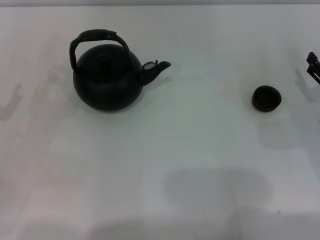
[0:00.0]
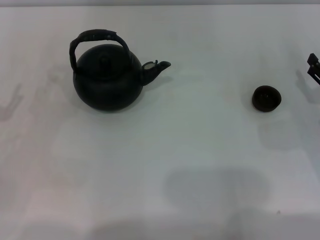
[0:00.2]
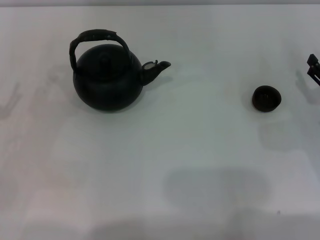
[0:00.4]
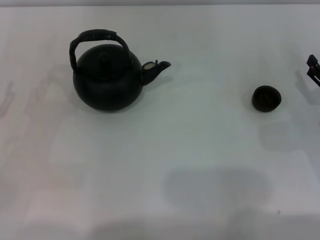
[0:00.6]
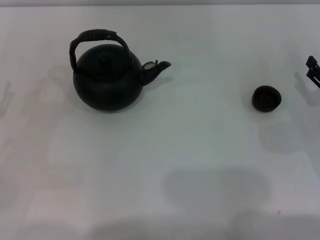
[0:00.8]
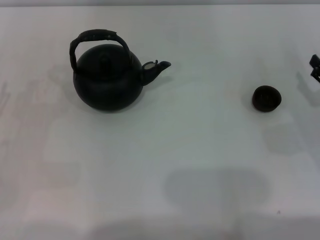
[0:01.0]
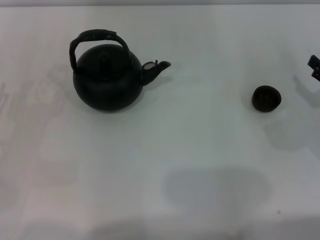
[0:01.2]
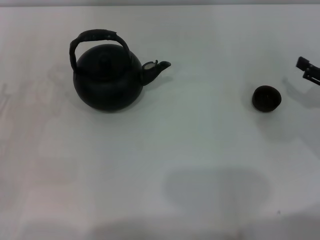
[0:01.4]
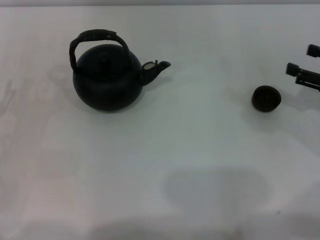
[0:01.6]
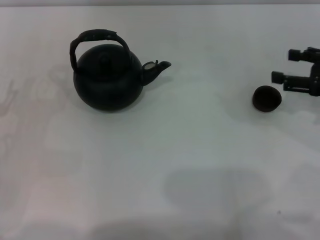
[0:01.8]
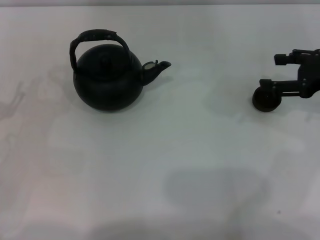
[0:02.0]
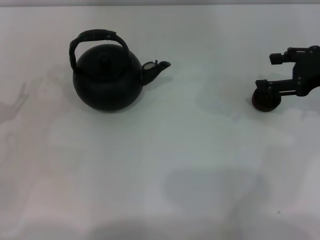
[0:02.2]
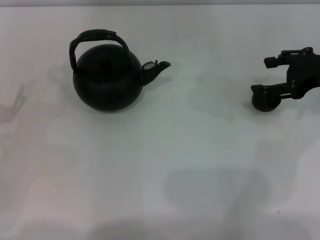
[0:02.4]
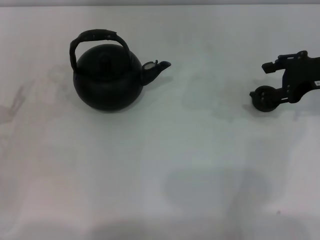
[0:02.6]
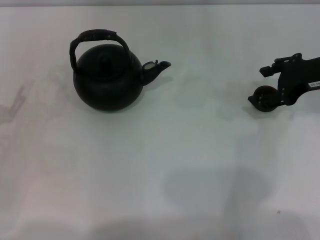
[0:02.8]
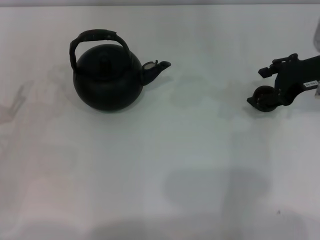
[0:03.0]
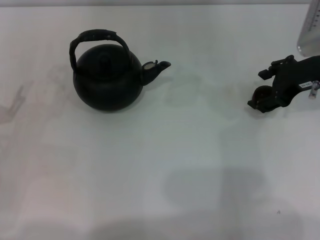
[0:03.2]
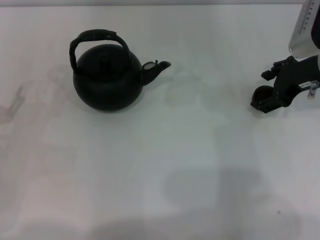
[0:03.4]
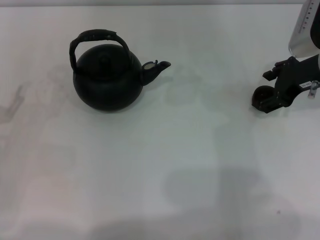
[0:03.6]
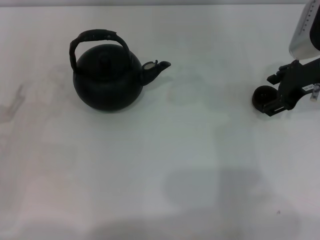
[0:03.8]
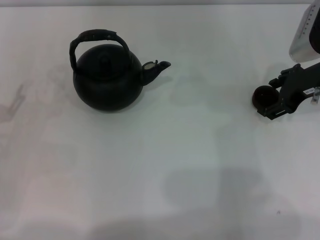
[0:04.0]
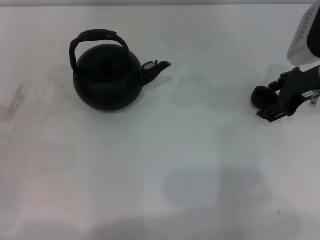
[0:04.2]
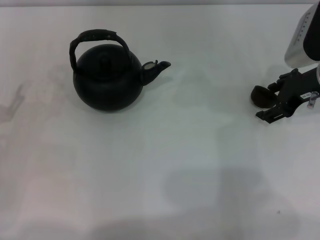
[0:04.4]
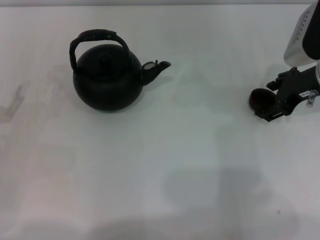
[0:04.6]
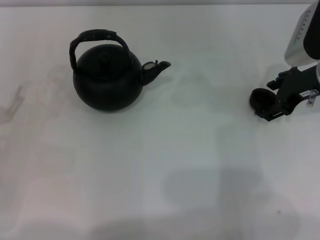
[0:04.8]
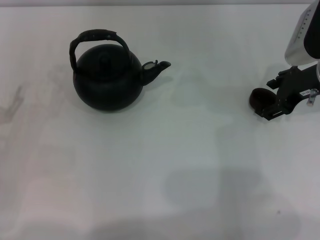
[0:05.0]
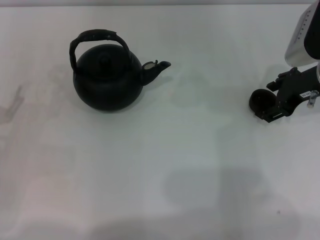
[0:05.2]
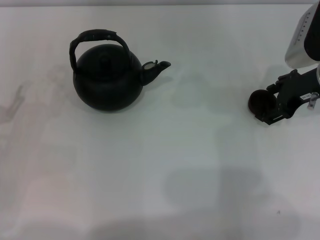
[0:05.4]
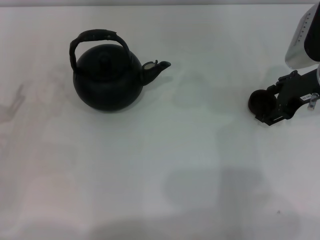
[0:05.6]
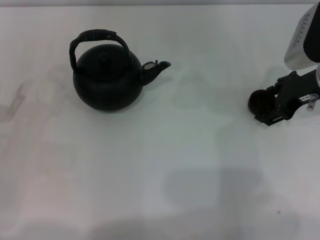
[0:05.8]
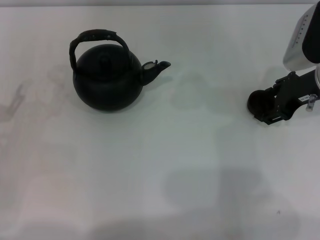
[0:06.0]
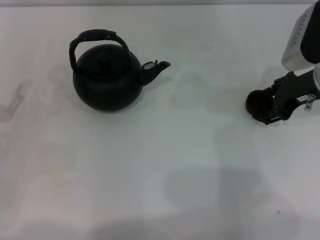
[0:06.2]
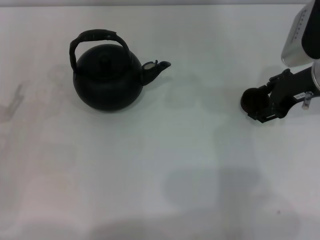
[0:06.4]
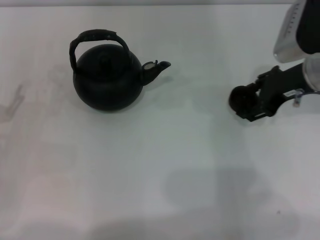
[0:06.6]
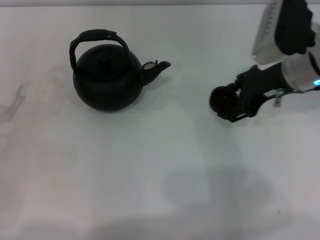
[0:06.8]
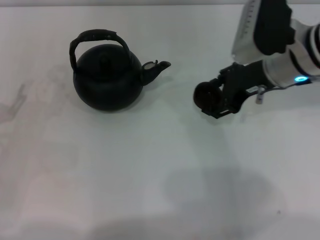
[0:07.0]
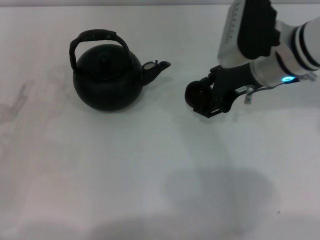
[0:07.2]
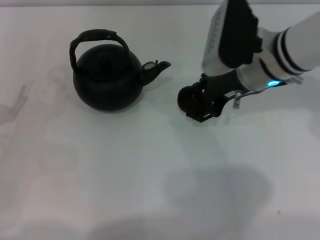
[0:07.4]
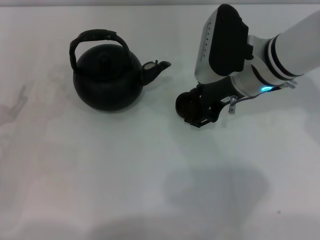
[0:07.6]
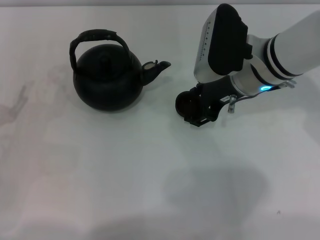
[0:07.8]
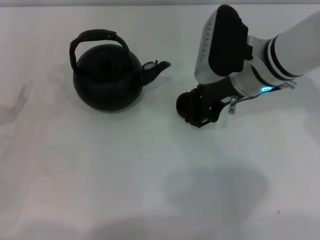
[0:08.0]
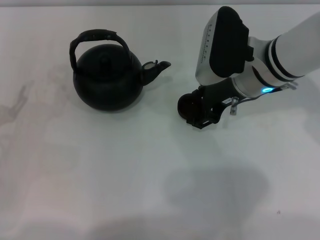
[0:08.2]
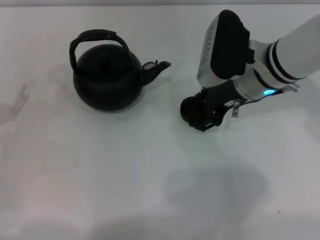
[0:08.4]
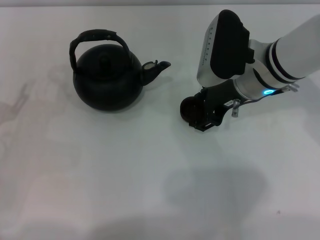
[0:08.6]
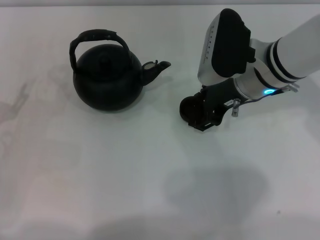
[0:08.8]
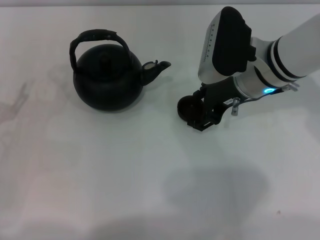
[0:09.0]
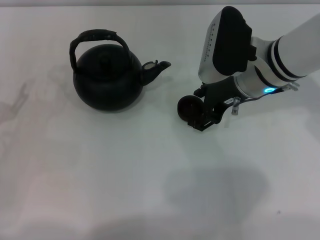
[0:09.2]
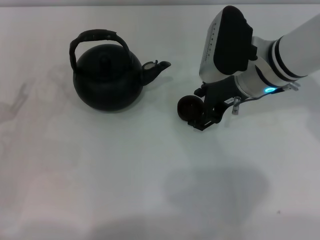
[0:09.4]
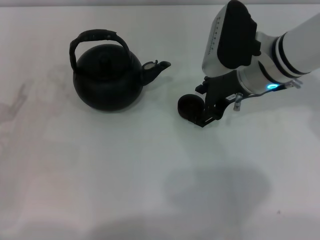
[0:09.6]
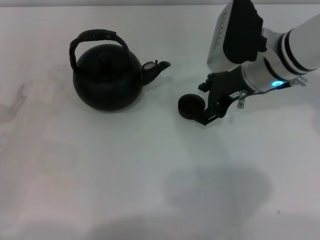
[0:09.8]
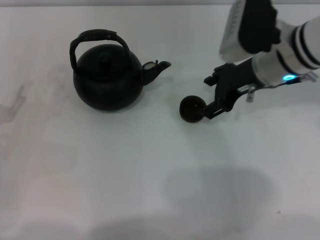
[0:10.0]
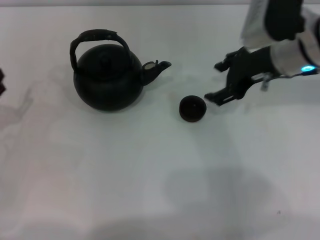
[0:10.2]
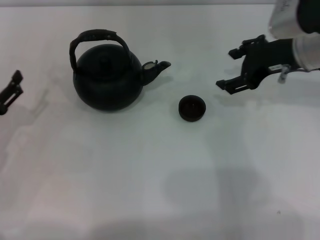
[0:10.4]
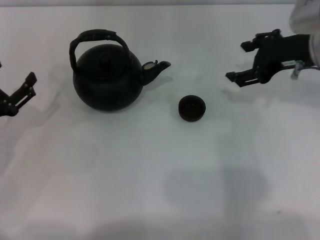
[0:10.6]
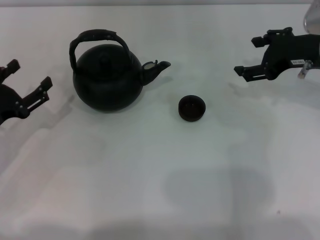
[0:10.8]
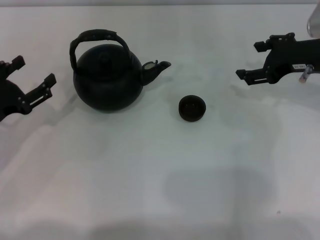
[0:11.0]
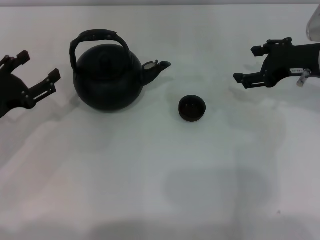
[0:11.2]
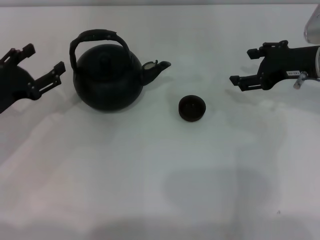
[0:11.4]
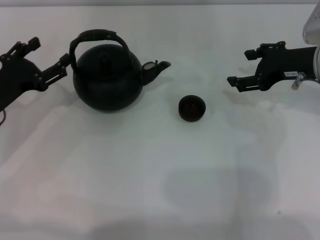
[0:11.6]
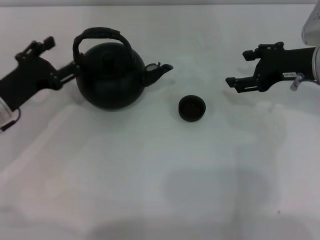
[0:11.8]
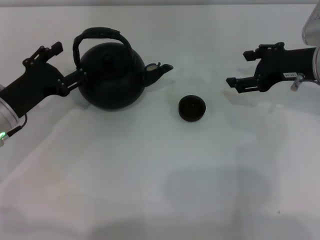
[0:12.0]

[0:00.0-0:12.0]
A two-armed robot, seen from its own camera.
Task of the whole recording: Grasp the handle of the teapot with one hand and pour tea into the teacup.
Step, 0:00.0 to 0:06.4: Pick up the teacup with the right gripper.
Step, 0:06.6 to 0:10.2: Place the teacup in the center of view with the right gripper.
0:00.0 to 0:01.6: The right gripper heads upward, covering some 5 cm.
0:01.6 to 0:03.0: The right gripper travels to the left, forward and upward by some 10 cm.
0:03.0 to 0:04.4: The grippers stay close to where they were, moving slightly.
0:04.4 to 0:06.0: The right gripper closes its fingers.
0:06.0 to 0:07.6: The right gripper heads to the left, covering some 10 cm, and closes its fingers.
0:07.6 to 0:09.0: Both grippers stay put.
0:09.0 to 0:10.4: The right gripper shifts about 5 cm to the right, and opens its fingers.
0:10.4 to 0:12.0: The left gripper is displaced forward and to the right by approximately 10 cm.

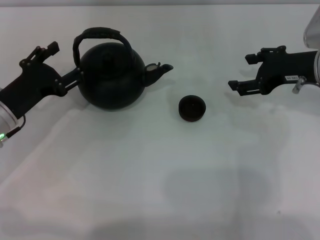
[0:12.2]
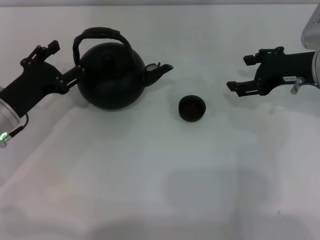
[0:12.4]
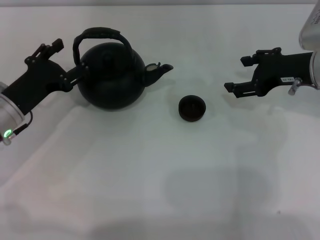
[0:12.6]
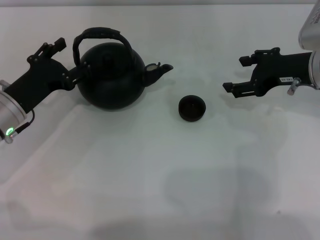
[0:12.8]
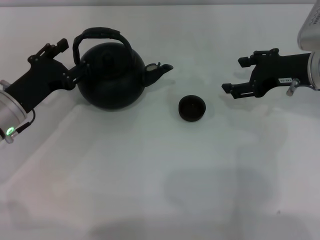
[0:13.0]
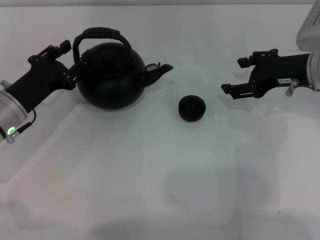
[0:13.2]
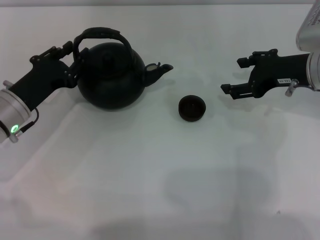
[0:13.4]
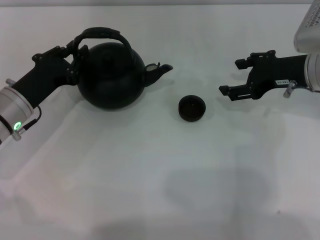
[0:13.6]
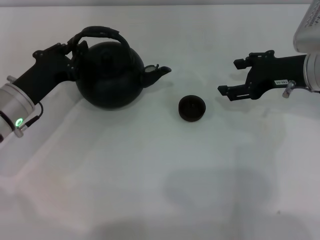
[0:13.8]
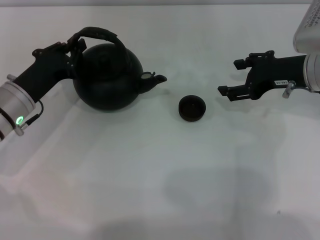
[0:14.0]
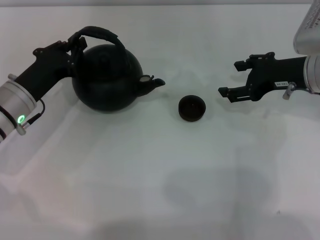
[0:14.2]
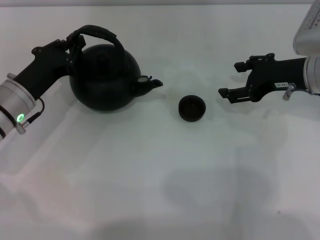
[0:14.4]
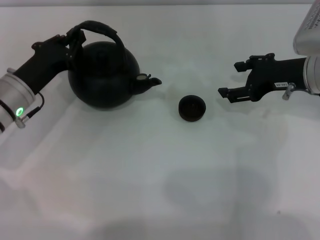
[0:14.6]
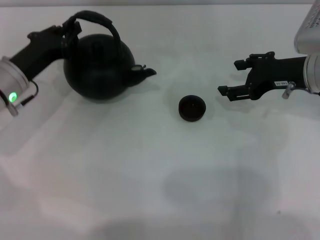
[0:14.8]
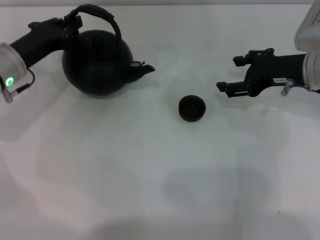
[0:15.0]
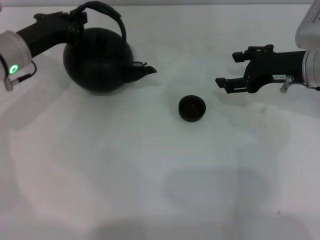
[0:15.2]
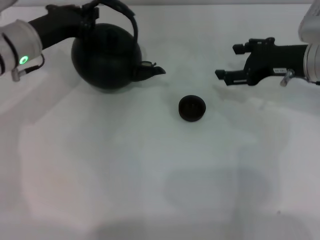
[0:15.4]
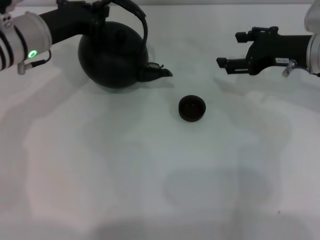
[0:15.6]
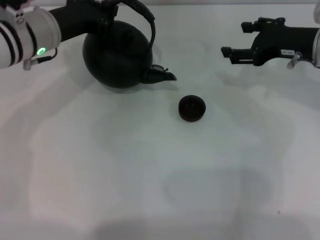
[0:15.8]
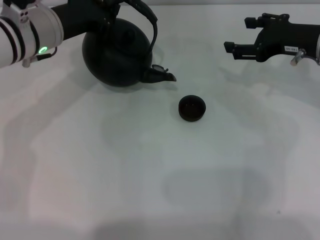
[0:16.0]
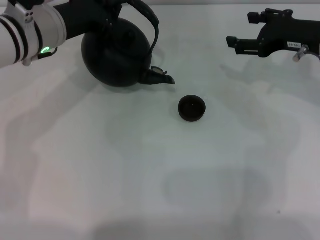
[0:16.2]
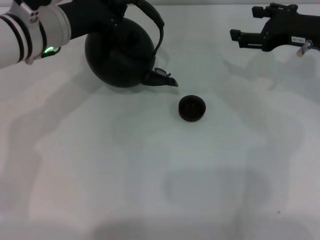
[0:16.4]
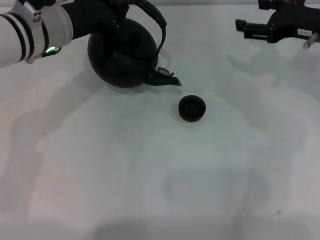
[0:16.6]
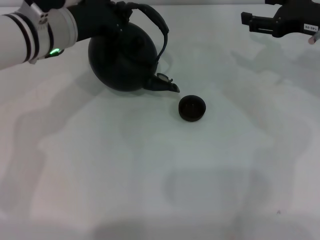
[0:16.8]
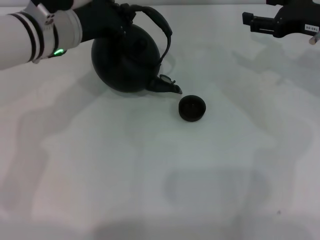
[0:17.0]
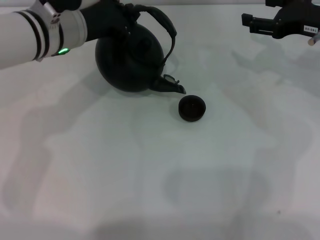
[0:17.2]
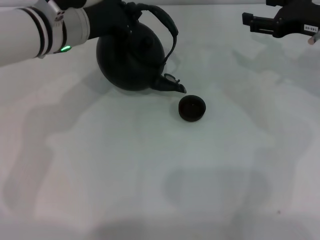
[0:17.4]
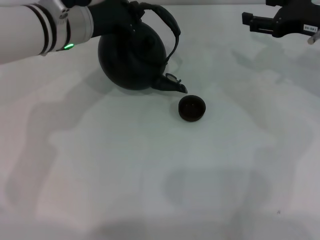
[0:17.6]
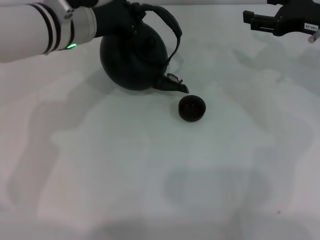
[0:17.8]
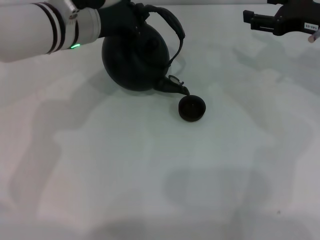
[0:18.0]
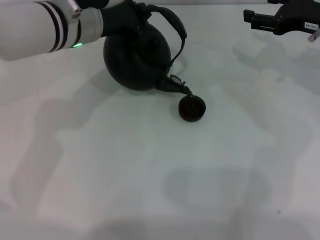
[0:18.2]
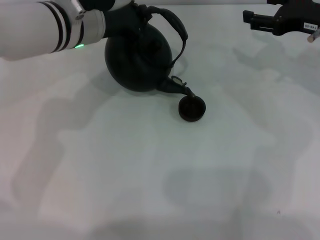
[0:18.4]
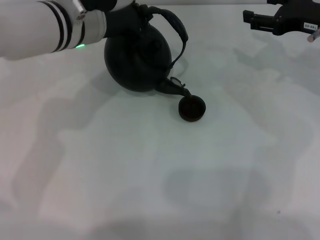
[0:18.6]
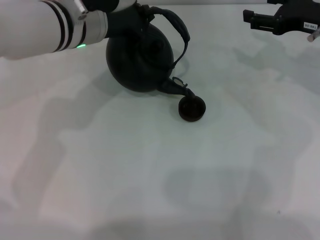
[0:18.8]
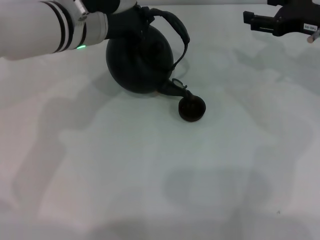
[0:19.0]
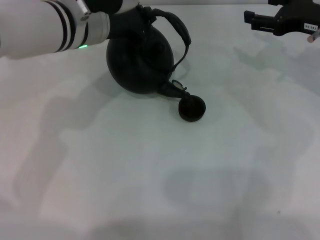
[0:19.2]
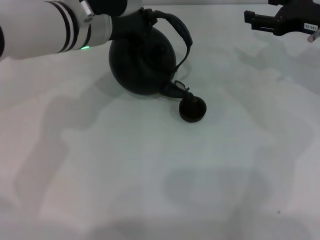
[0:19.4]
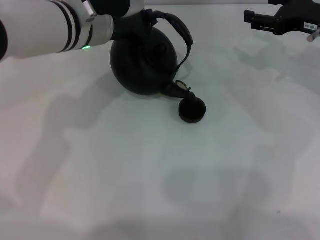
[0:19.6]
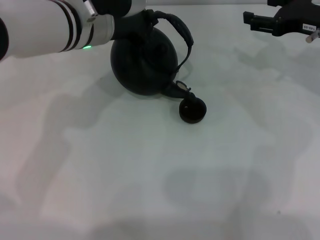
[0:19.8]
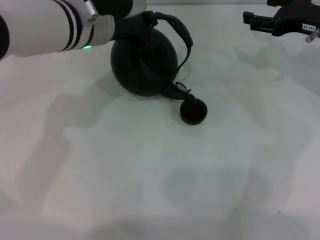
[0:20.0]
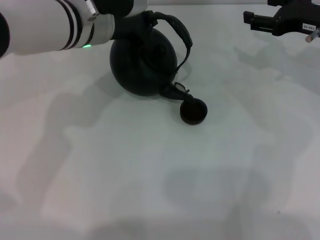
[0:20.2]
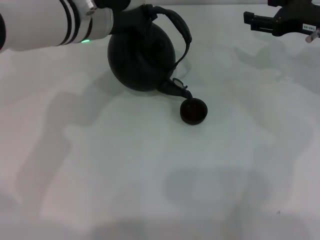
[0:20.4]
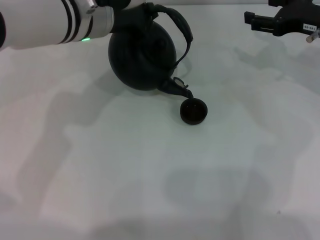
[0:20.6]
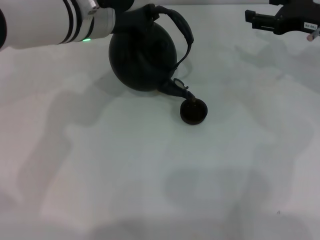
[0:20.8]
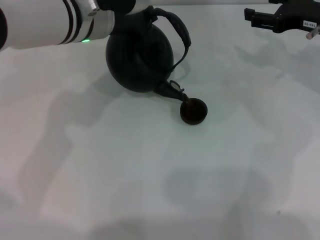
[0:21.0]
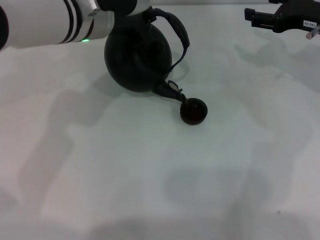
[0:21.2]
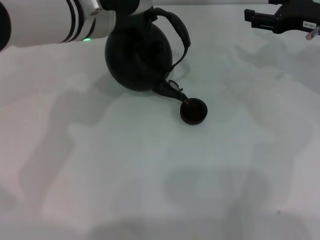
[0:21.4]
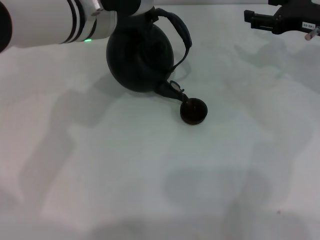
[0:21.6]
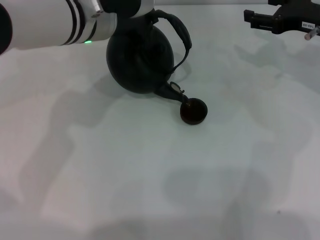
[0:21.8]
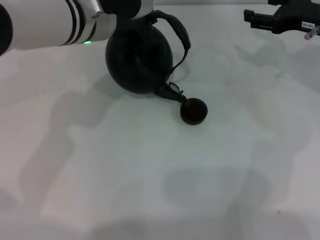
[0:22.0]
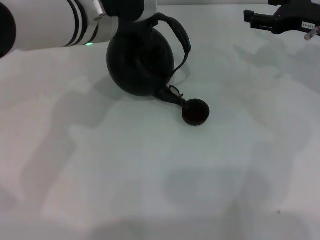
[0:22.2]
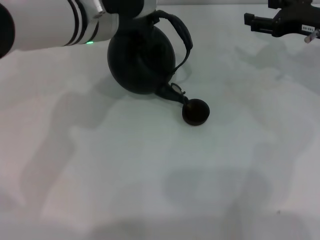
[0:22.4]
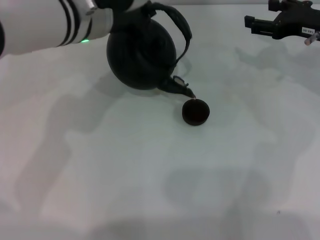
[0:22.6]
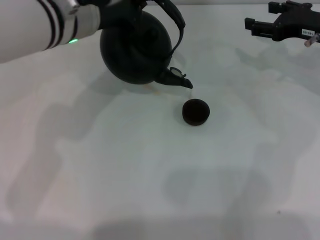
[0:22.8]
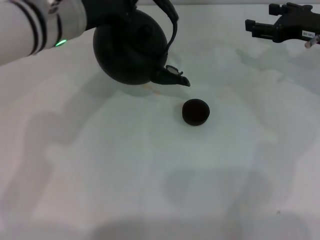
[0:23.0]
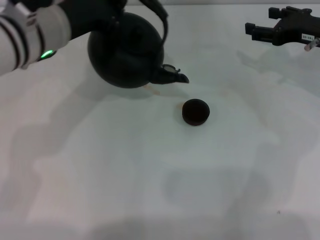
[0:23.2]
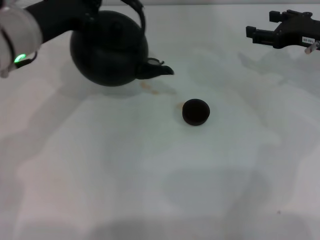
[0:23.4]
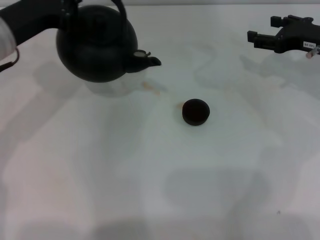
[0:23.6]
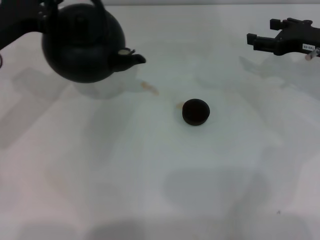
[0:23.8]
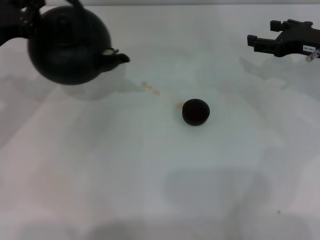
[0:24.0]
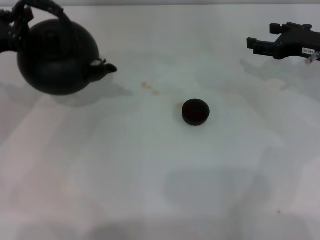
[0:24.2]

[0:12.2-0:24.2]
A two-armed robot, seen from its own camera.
Task of the whole recording: Grasp the handle of the teapot with one hand and pour tea into the teacup.
Step, 0:12.2 to 0:15.4: Pick up the teapot with the left gripper.
Step, 0:15.6 to 0:22.8: Pour tea into the teacup with the left gripper.
0:12.2 to 0:13.8: The left gripper closes.
0:13.8 to 0:15.2: The left gripper shifts roughly 10 cm forward and upward.
0:15.2 to 0:16.6: The left gripper shifts about 10 cm to the right and upward.
0:16.6 to 0:19.8: The grippers make only small movements.
0:19.8 to 0:22.6: The grippers stay close to where they were, moving slightly.
0:22.6 to 0:24.2: The left gripper is displaced to the left by roughly 20 cm.
